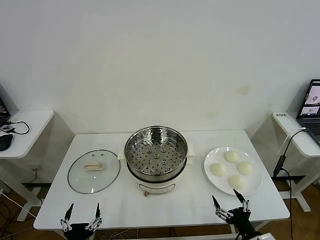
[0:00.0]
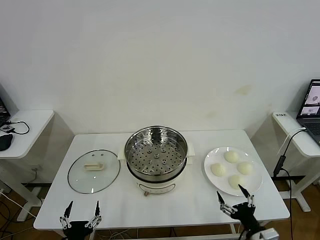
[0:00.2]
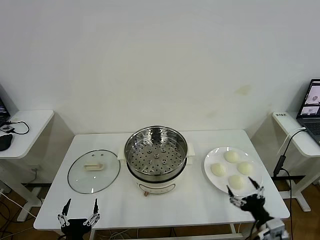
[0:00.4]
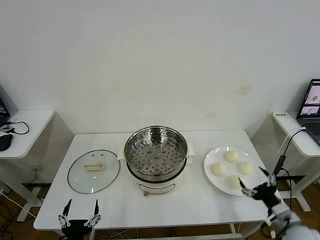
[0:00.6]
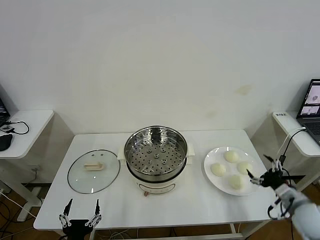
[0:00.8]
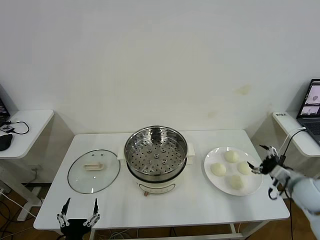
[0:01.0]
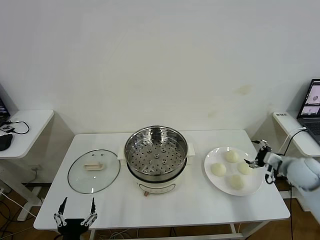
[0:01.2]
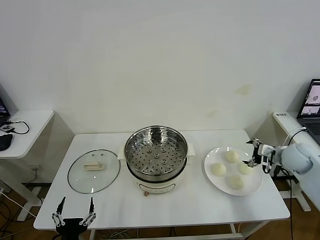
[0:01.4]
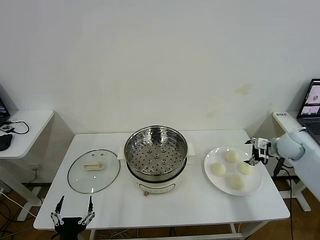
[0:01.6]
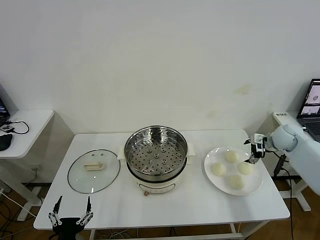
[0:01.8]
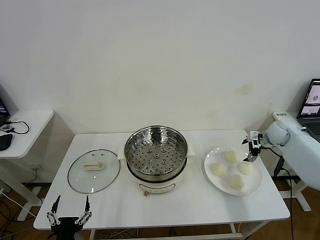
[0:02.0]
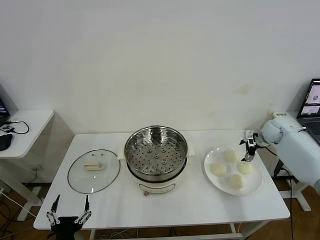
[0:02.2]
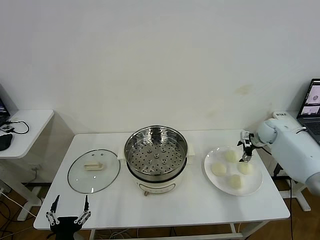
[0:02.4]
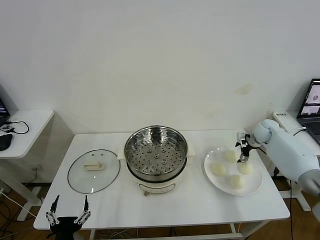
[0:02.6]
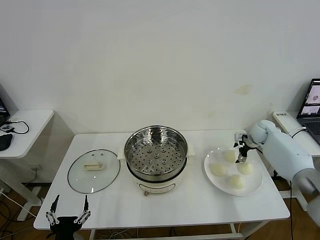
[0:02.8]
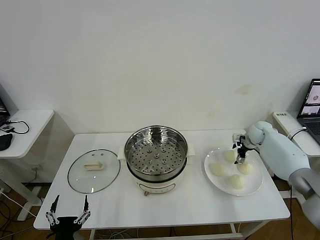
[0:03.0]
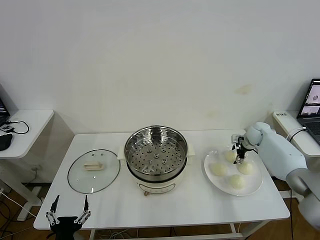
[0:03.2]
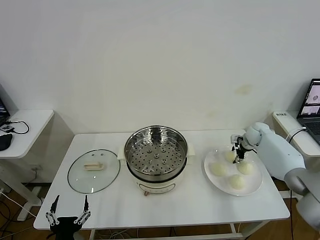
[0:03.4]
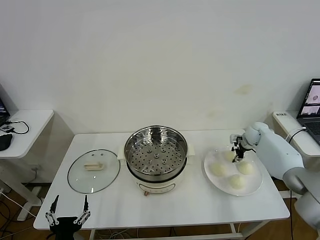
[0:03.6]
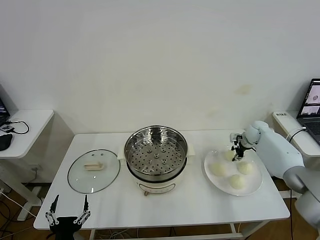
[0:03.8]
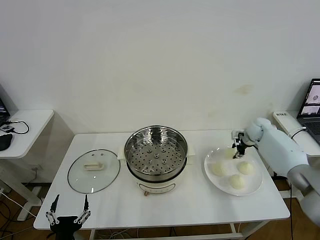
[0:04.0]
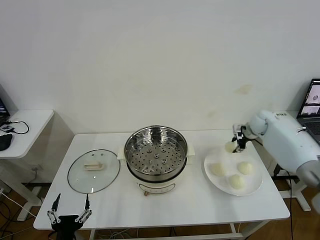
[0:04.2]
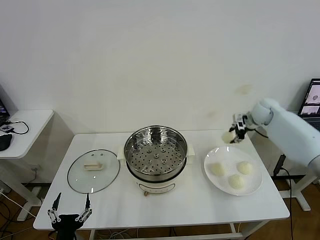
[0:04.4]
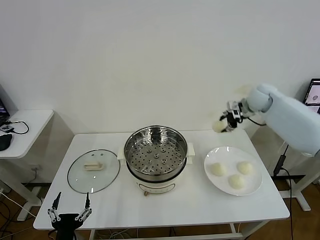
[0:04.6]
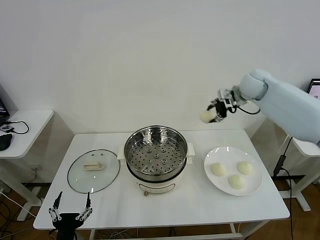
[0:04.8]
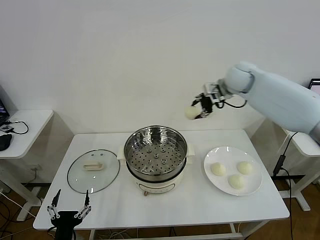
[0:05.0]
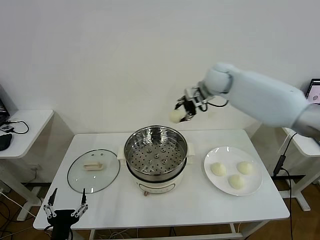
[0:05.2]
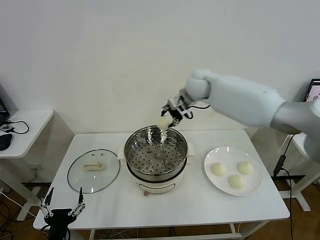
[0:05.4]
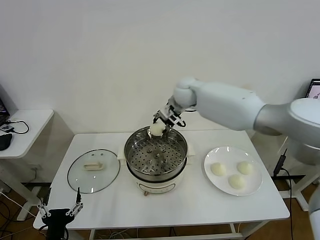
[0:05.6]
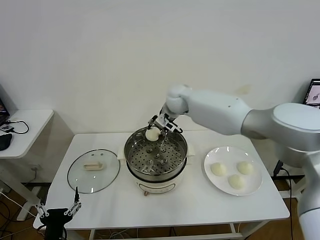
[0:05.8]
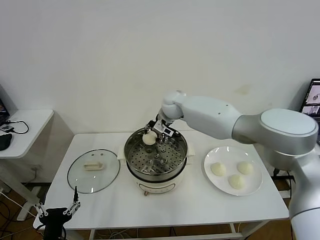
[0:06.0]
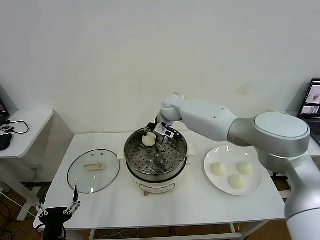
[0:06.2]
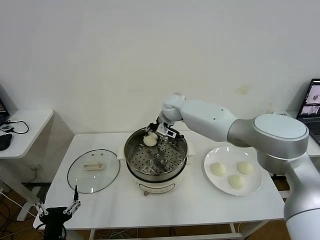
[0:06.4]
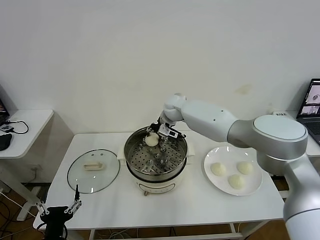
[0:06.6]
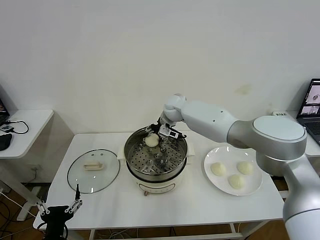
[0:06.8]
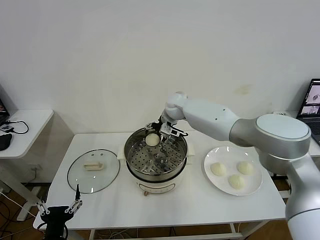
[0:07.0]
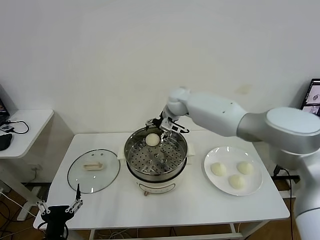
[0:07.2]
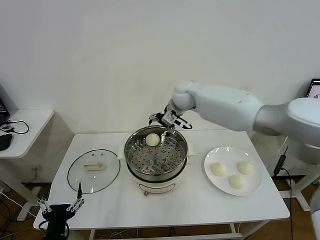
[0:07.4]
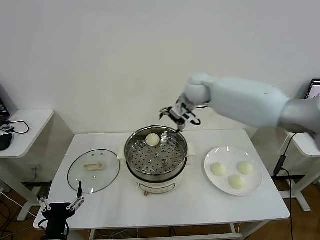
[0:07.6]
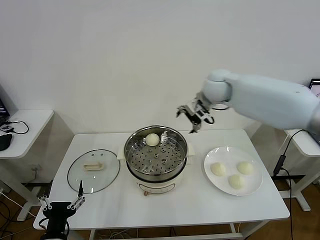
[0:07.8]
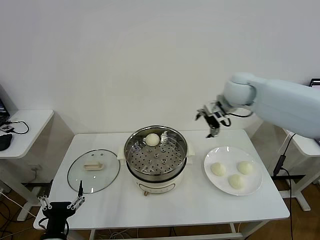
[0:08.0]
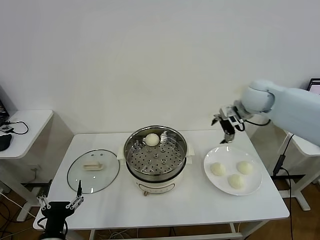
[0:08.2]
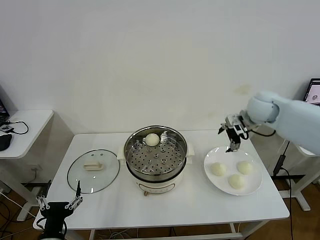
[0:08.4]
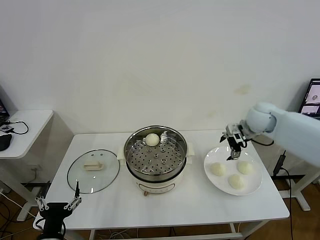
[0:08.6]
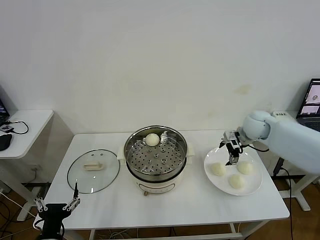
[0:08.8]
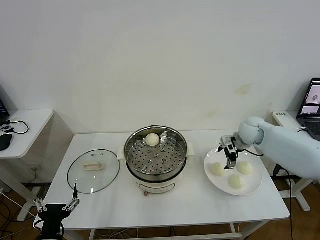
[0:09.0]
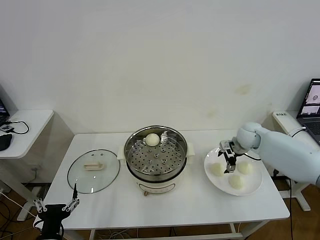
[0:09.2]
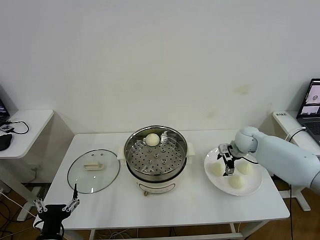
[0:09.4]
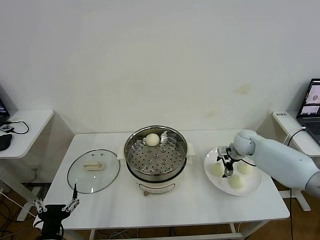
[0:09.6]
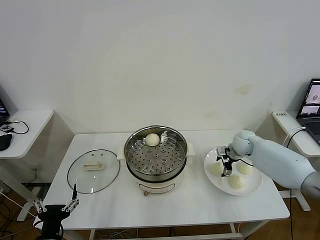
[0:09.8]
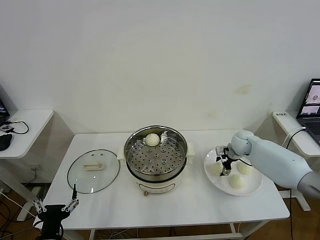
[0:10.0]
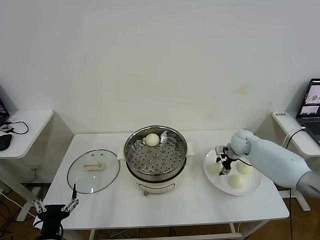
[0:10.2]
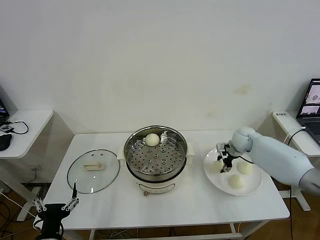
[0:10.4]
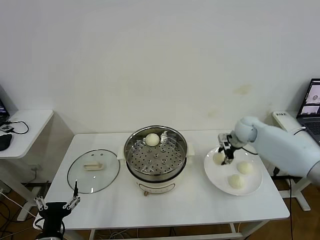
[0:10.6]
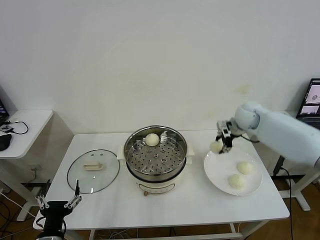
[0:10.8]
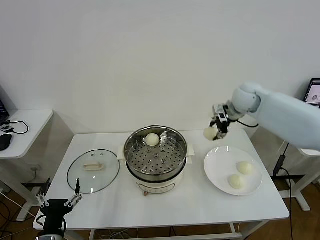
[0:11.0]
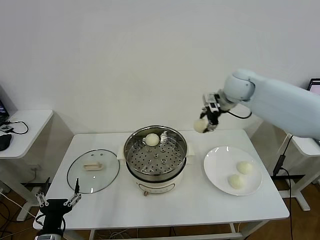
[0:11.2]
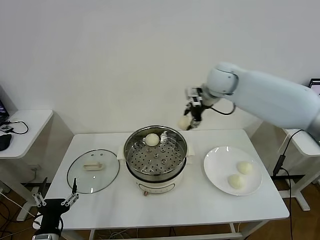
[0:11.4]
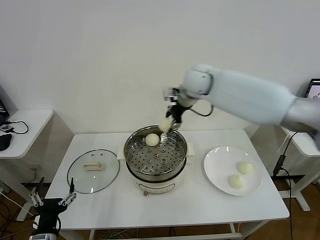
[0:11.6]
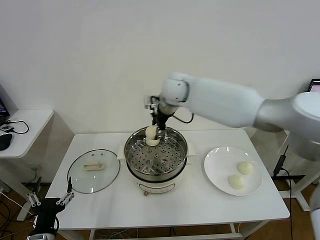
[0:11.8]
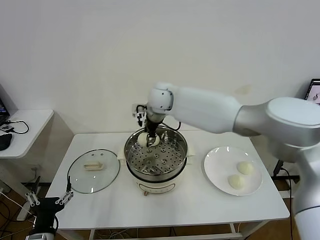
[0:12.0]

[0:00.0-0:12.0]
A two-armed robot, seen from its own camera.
Task of the whole recording: take steamed baozi put them in steamer then cover it.
Step, 0.0 to 3.8 s: Grasp the baozi in the plate with right gripper.
Step, 4.0 to 7.0 s: Place the baozi on the steamer with right gripper.
Step, 7.2 to 10.2 s: Grasp the baozi in the plate with right gripper.
1.6 to 3.0 s: The right gripper is displaced forward and downward by about 10 cm.
3.0 to 4.4 s: The right gripper goes approximately 15 cm upward, and closes its fingers.
4.4 to 6.0 s: The right gripper goes about 30 cm to the left.
6.0 to 7.6 s: The right gripper shifts approximately 15 cm to the right and upward, and opens up.
7.6 to 9.0 s: The right gripper shifts about 25 cm to the right and downward.
9.0 to 10.4 s: The right gripper closes.
10.4 to 12.0 s: The right gripper is displaced to the left and upward by about 35 cm.

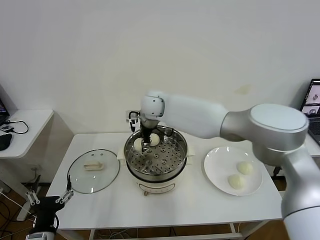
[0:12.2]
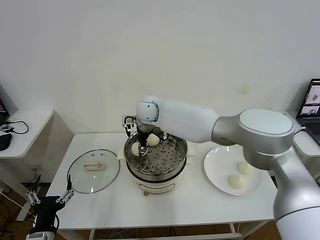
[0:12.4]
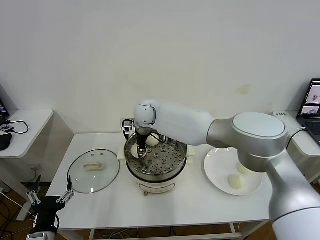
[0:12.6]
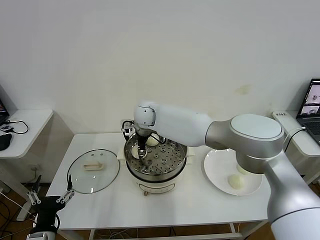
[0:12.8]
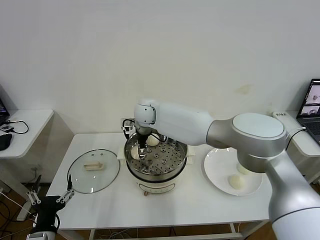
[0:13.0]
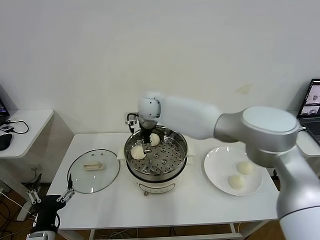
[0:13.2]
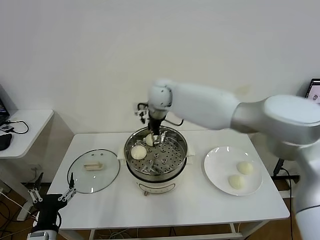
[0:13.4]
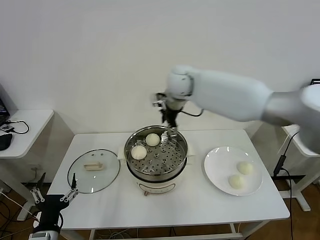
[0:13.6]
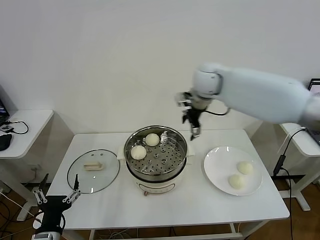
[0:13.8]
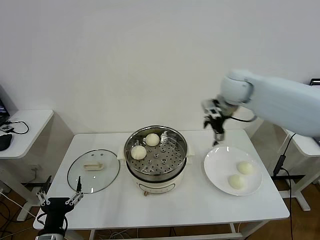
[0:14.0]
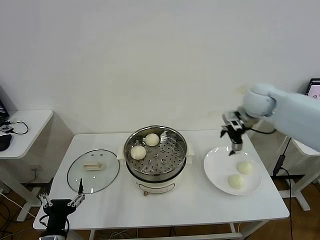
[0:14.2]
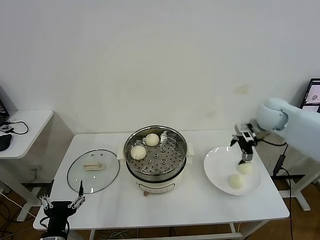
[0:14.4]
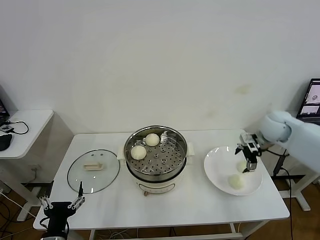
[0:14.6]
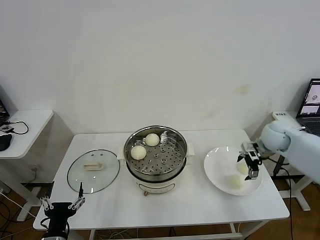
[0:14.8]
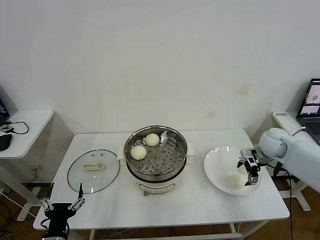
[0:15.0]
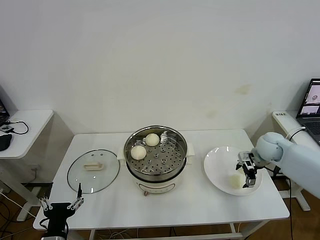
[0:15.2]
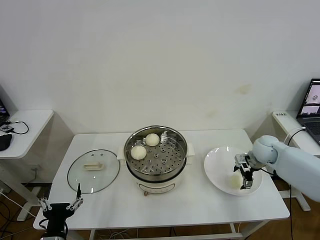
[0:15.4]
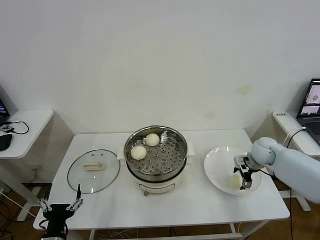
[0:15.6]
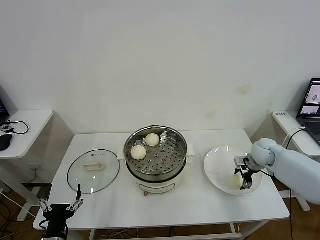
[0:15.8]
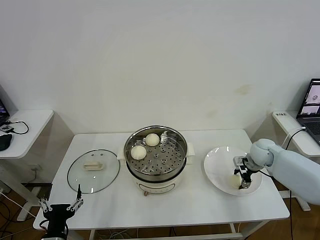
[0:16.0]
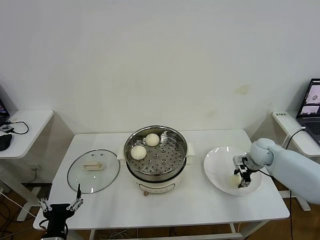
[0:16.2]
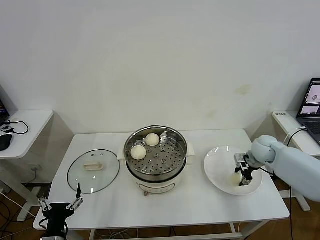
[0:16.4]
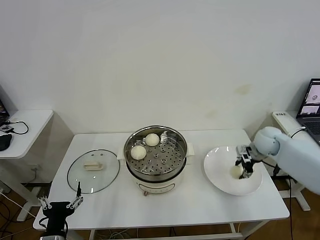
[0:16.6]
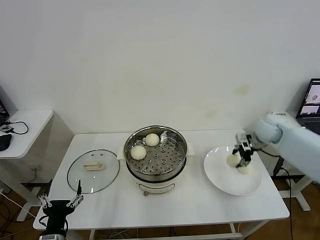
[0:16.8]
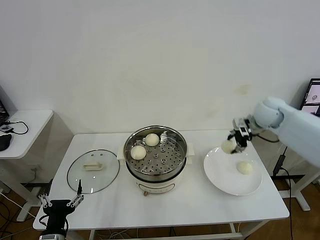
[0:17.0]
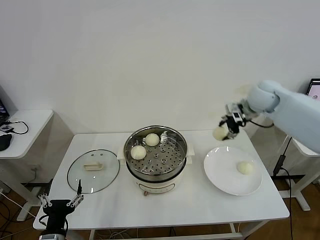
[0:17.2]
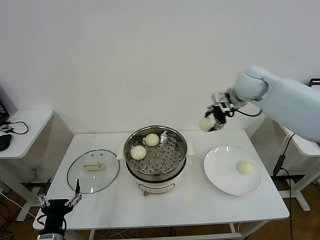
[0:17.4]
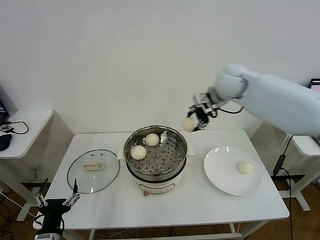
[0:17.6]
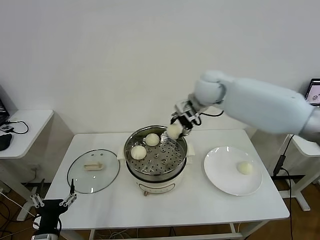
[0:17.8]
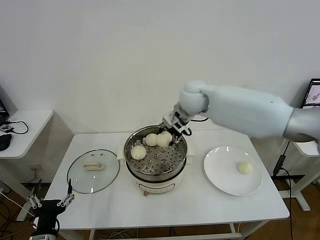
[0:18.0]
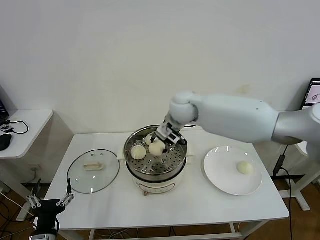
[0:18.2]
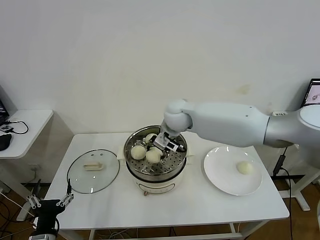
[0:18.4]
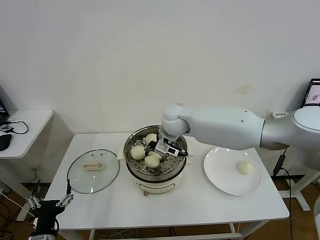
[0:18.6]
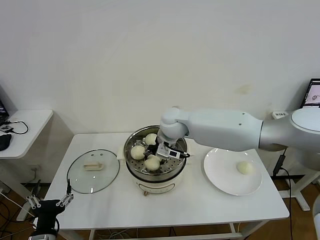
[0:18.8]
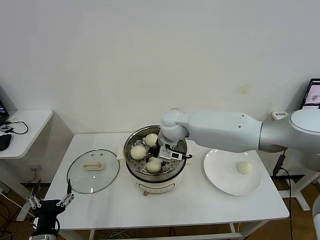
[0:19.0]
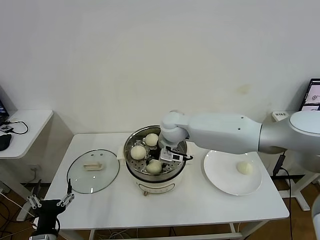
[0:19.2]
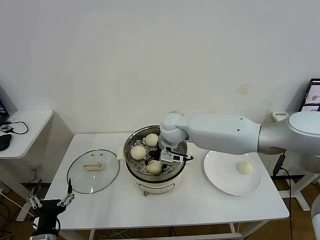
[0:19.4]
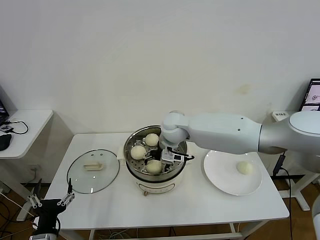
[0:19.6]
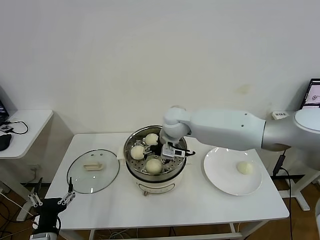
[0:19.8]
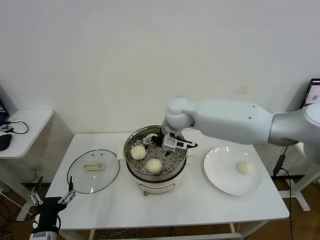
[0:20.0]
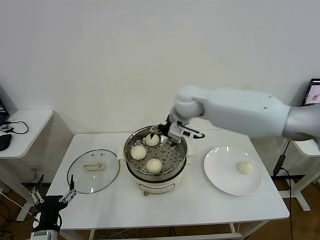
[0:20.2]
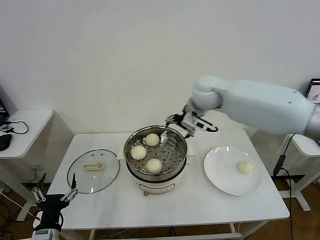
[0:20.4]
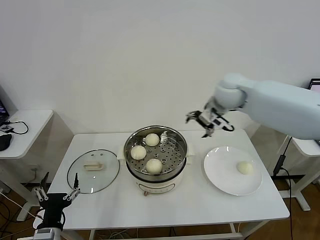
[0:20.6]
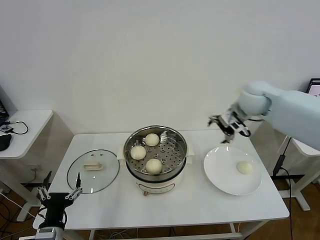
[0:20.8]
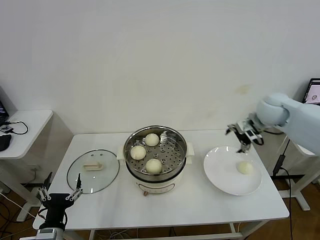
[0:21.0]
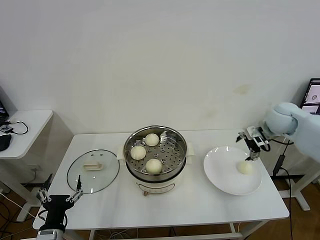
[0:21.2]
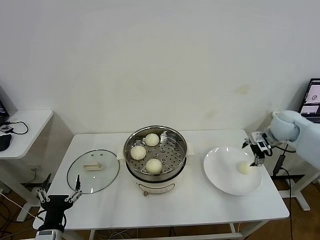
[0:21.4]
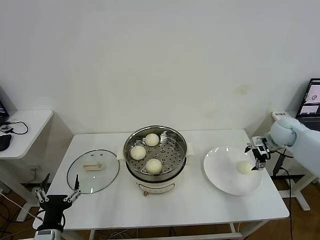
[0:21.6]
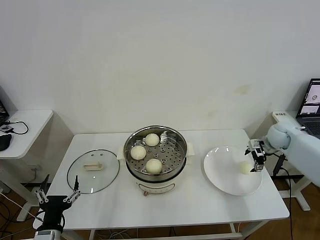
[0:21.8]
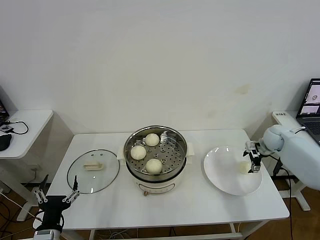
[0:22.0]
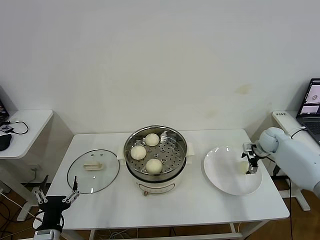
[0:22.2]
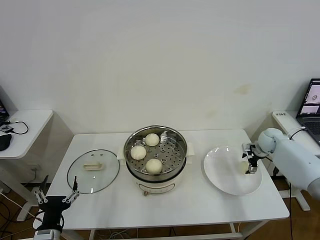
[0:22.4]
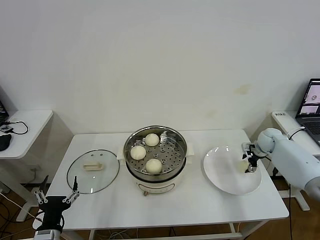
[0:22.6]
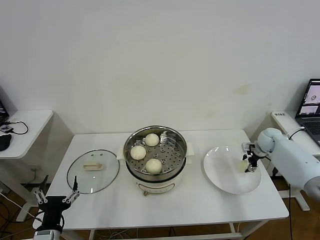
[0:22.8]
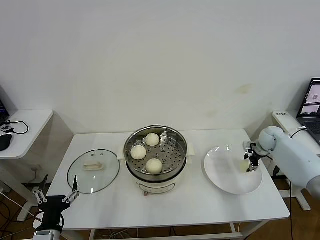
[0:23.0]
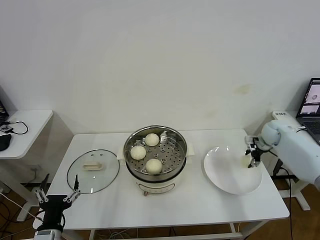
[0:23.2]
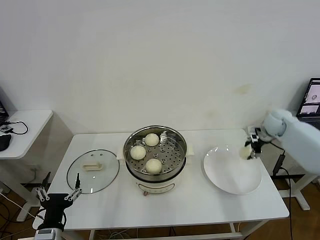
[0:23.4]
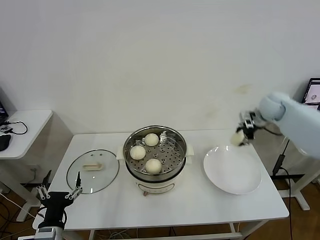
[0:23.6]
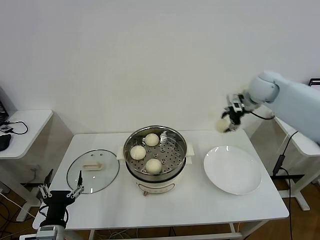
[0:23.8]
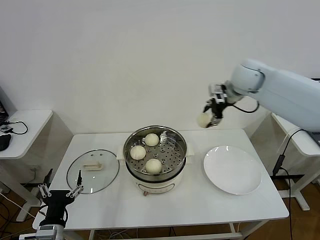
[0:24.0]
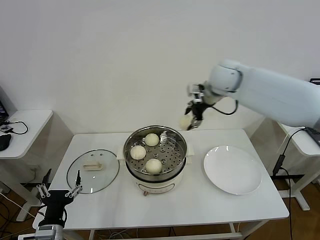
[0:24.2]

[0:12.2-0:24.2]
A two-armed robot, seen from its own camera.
Task of the whole recording: take steamed baozi put them in steamer then cover it.
Step, 13.4 to 16.4 s: Grasp the baozi in the plate with right gripper.
Step, 16.6 to 19.8 s: Place the baozi on the steamer with right gripper.
Step, 20.0 to 23.0 s: Grasp the baozi in the plate with right gripper.
12.2 to 13.8 s: The right gripper travels to the right and upward by roughly 20 cm, and opens.
13.8 to 15.2 s: The right gripper heads to the right and downward, covering roughly 30 cm.
15.2 to 16.6 s: The right gripper closes.
16.6 to 18.2 s: The right gripper moves to the left, about 30 cm.
18.2 to 19.8 s: The right gripper opens.
19.8 to 21.2 s: The right gripper heads to the right, covering roughly 35 cm.
21.2 to 22.6 s: The right gripper moves downward, some 15 cm, and closes.
22.6 to 24.2 s: The right gripper heads upward and to the left, covering some 40 cm.
